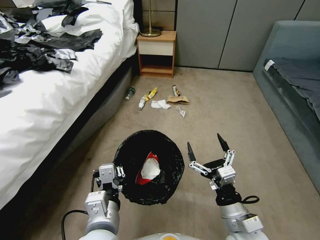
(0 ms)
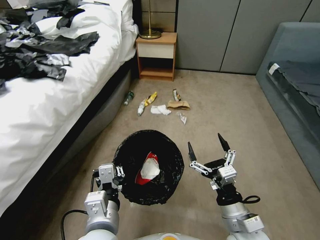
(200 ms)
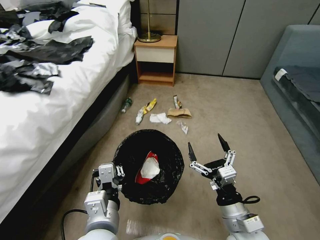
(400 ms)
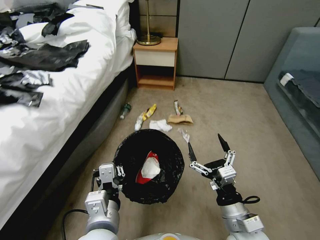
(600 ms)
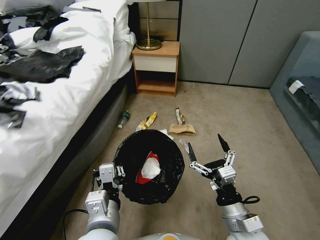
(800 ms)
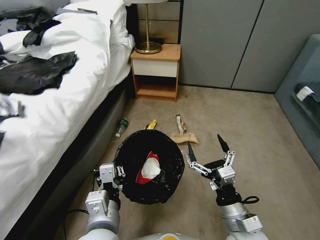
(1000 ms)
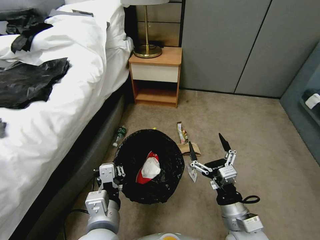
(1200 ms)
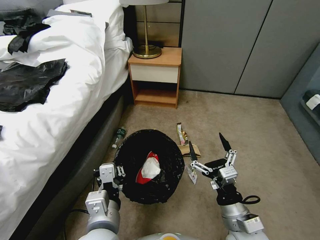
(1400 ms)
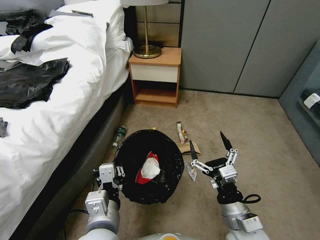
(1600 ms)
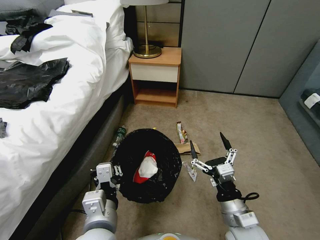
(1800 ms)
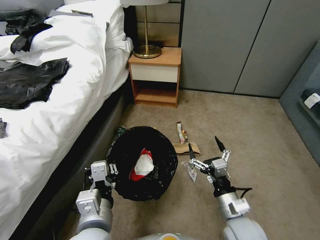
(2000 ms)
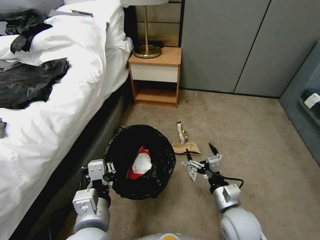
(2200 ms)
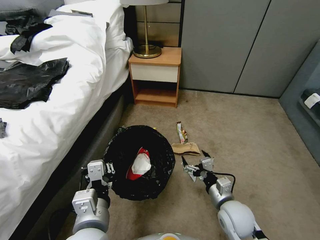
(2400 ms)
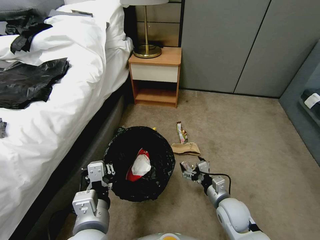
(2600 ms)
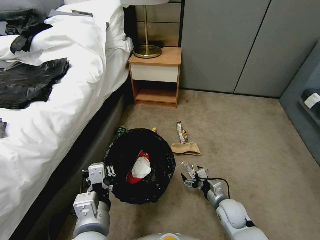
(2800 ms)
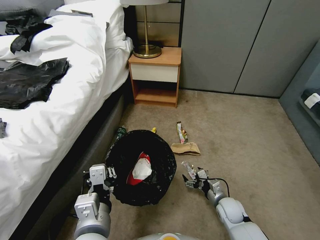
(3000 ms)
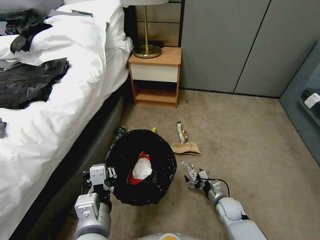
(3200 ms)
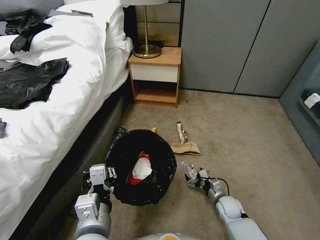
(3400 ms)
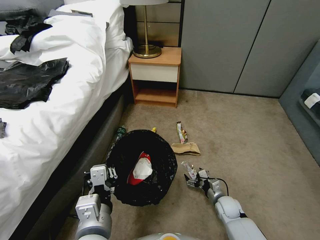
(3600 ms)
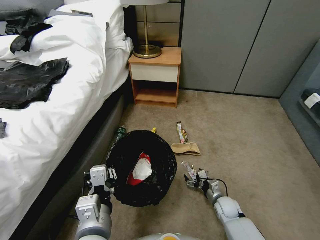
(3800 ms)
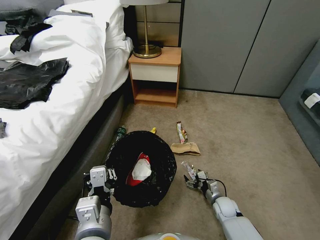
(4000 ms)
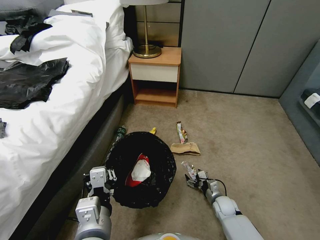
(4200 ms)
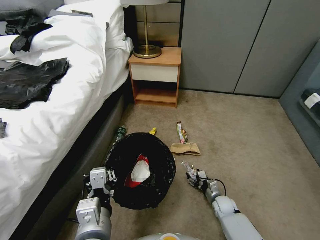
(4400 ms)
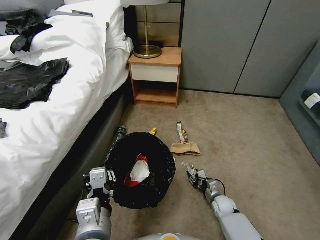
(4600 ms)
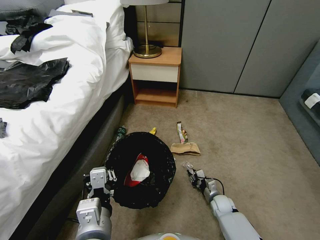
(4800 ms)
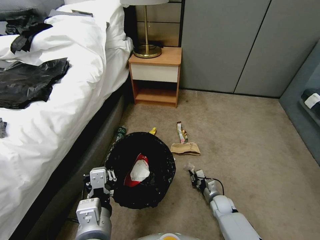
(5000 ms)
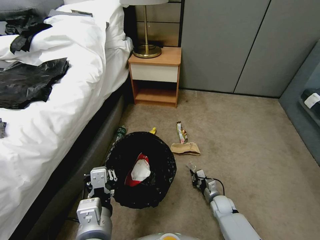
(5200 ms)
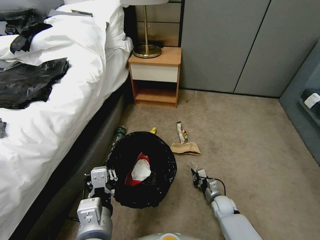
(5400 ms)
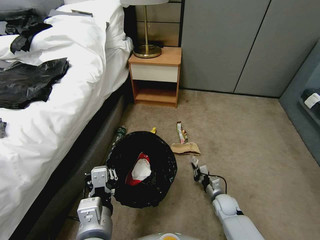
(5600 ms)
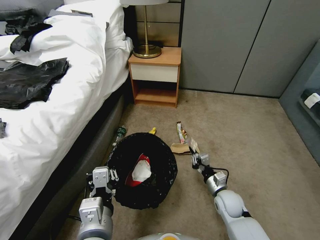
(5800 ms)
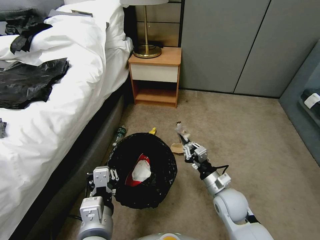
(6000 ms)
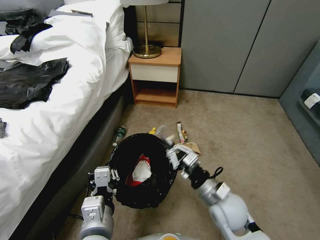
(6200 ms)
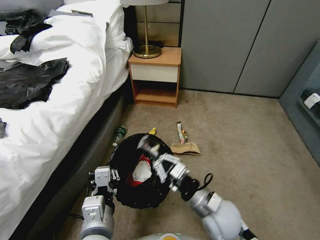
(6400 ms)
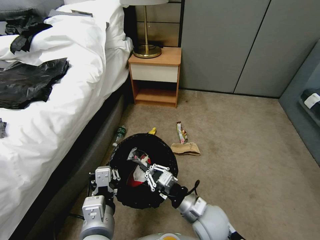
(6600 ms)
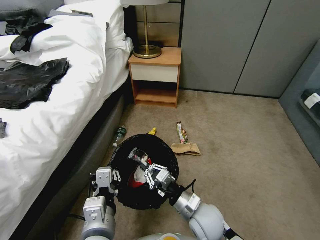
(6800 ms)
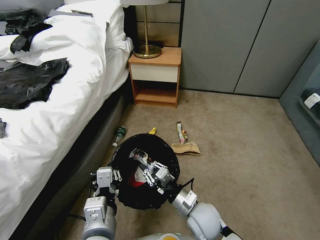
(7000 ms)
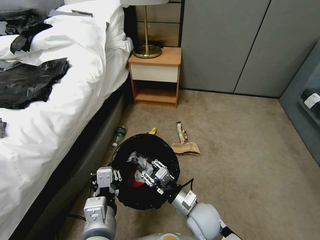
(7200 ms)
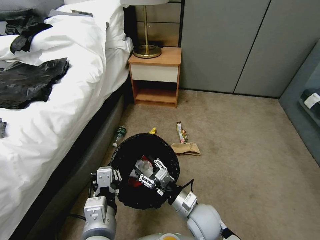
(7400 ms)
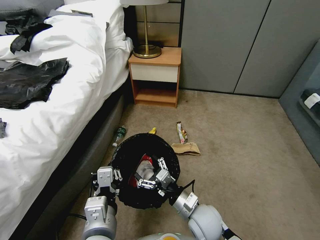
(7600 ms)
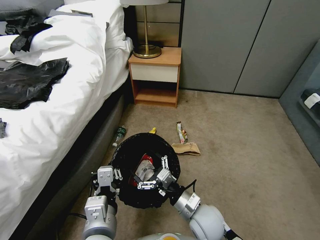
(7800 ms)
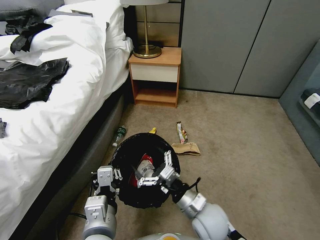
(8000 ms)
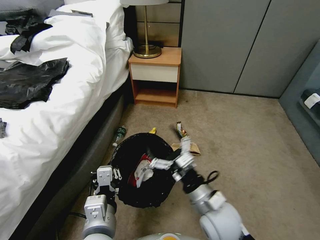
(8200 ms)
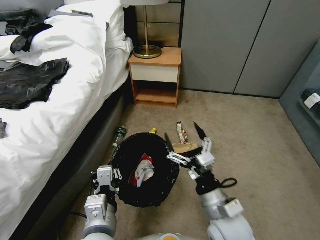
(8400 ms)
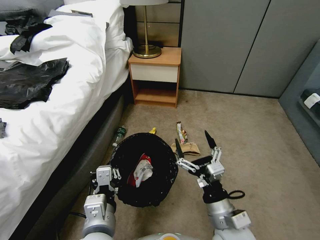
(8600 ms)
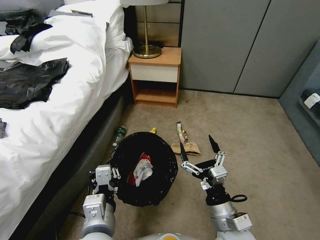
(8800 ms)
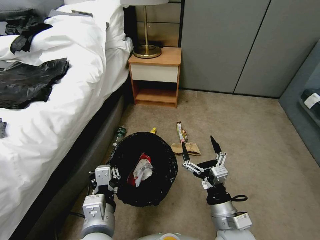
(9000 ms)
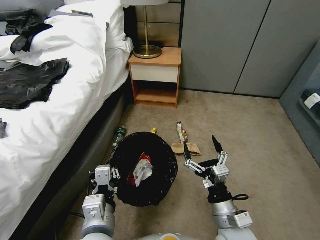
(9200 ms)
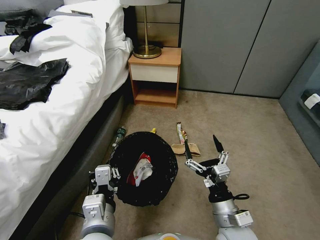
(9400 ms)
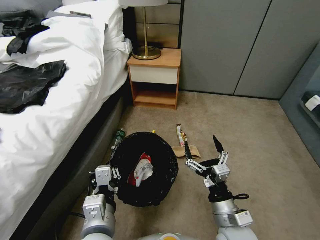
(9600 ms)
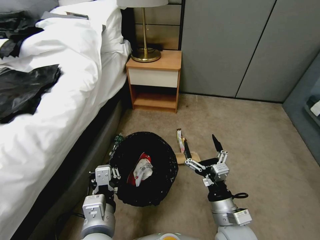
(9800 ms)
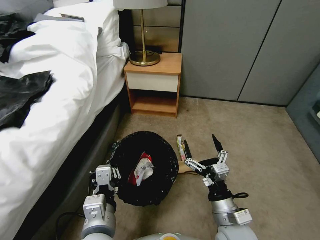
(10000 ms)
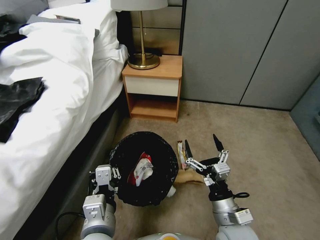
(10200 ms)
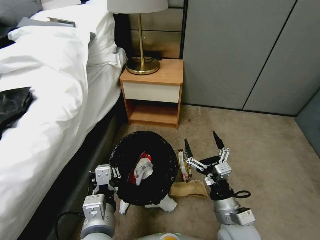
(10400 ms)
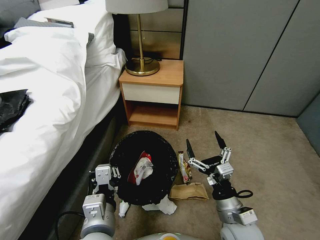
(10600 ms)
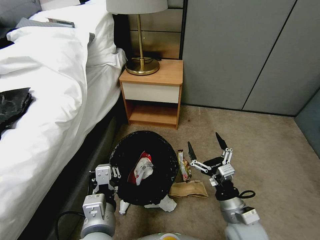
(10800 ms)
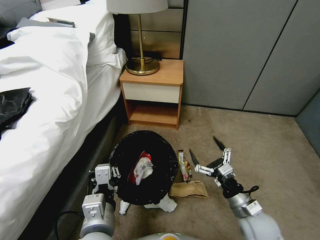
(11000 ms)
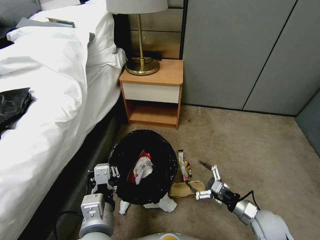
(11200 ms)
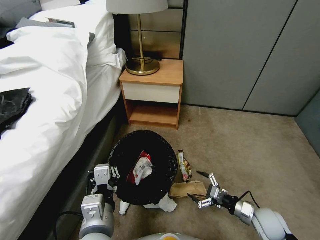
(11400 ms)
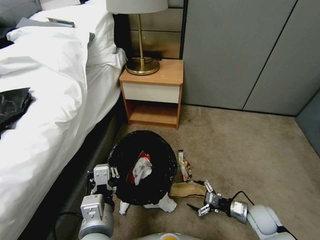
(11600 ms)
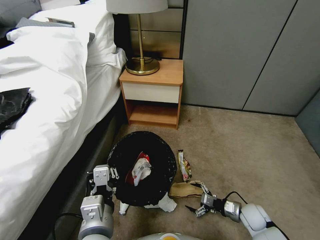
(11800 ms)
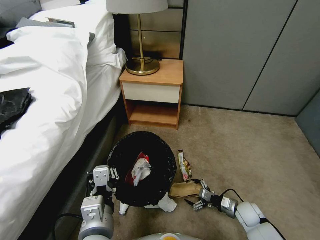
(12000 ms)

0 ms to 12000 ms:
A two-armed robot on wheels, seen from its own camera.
Task of the whole recording: Pick up the trash bin, then pick up the garbage from the floor and place it into the trash bin.
1600 ms to 3000 ms: The right gripper shifts roughly 20 cm downward and forward.
3000 ms to 4400 ms: The right gripper moves downward, roughly 10 cm.
4400 ms to 6000 ms: The right gripper goes some 20 cm upward, and closes up.
6000 ms to 7600 ms: The right gripper shifts roughly 10 cm to the left and backward, and opens.
7600 ms to 9000 ms: The right gripper shifts roughly 10 cm backward, to the right and upward.
10400 ms to 12000 ms: The right gripper travels downward, to the right and forward by approximately 30 cm.

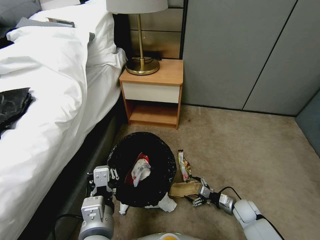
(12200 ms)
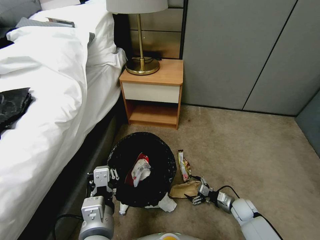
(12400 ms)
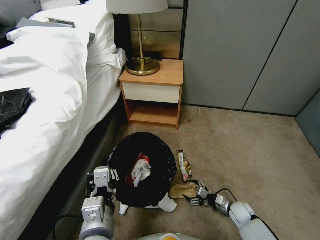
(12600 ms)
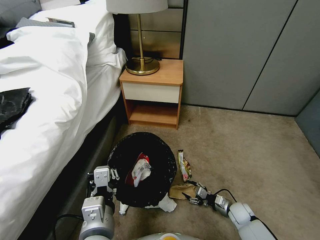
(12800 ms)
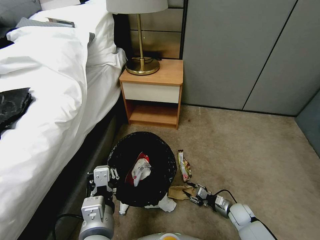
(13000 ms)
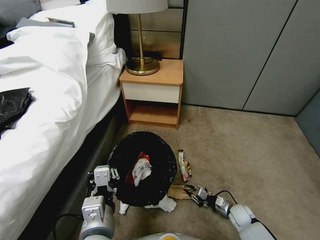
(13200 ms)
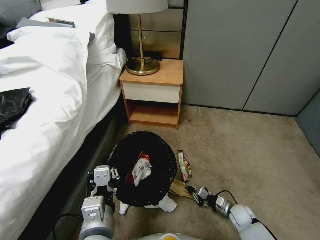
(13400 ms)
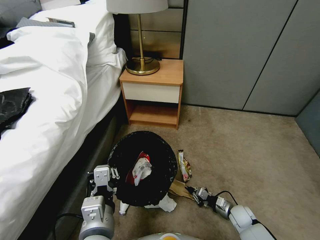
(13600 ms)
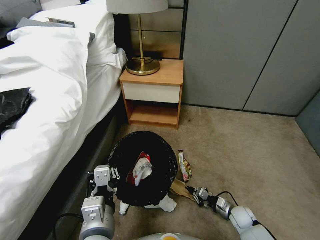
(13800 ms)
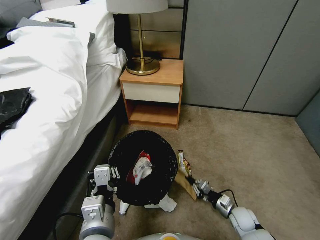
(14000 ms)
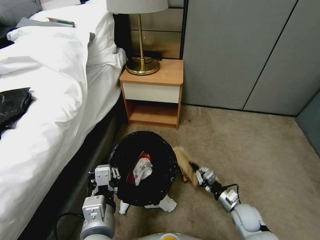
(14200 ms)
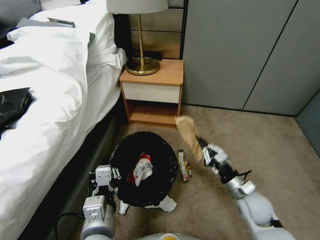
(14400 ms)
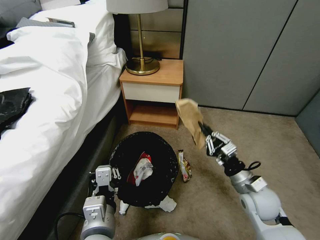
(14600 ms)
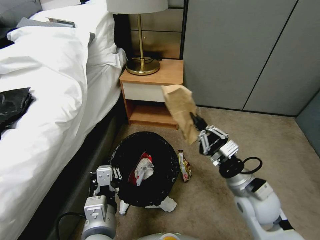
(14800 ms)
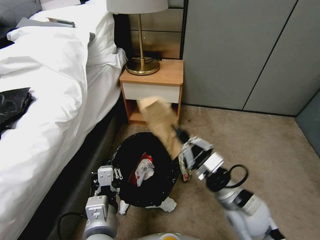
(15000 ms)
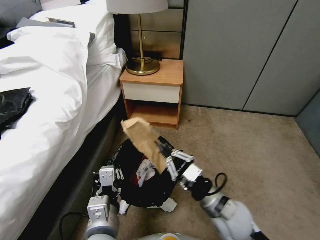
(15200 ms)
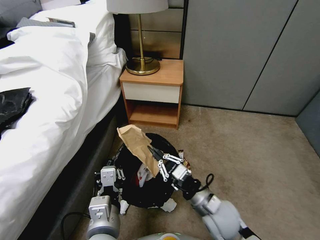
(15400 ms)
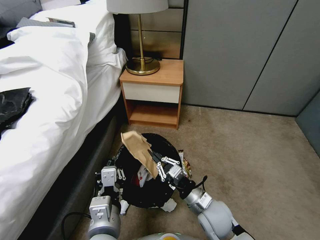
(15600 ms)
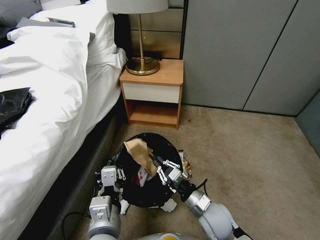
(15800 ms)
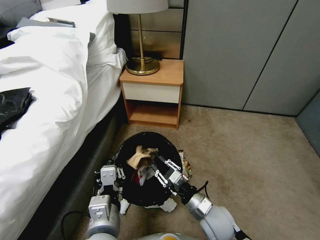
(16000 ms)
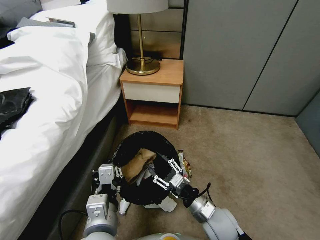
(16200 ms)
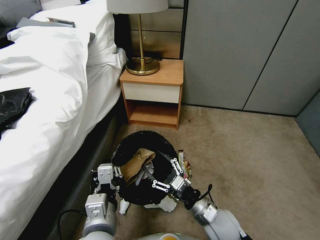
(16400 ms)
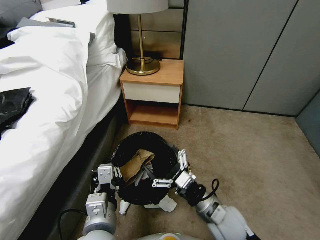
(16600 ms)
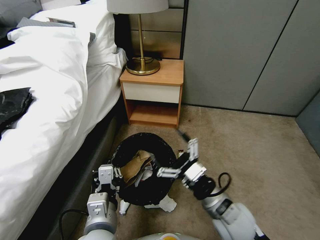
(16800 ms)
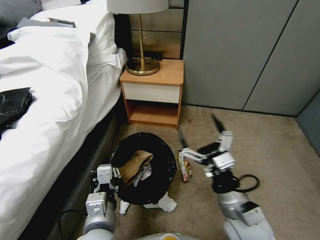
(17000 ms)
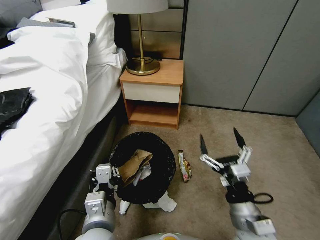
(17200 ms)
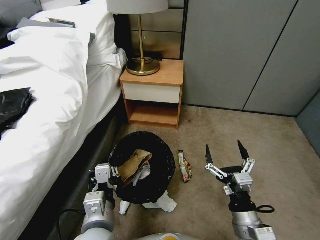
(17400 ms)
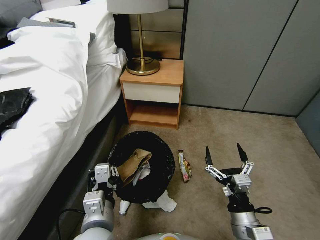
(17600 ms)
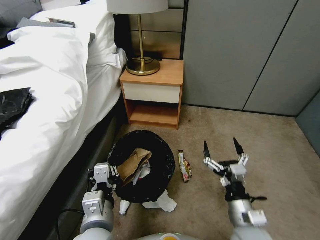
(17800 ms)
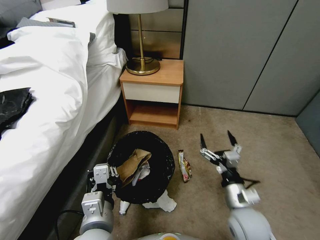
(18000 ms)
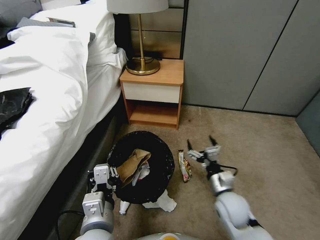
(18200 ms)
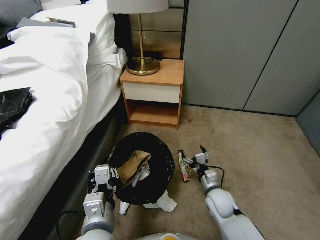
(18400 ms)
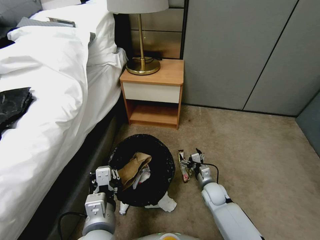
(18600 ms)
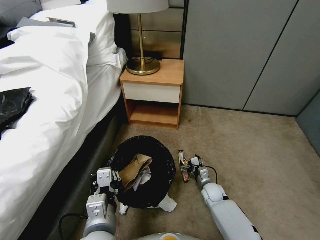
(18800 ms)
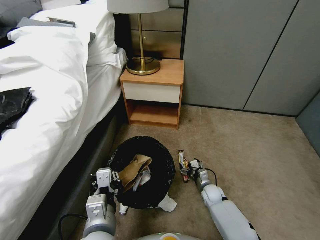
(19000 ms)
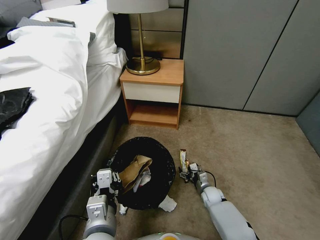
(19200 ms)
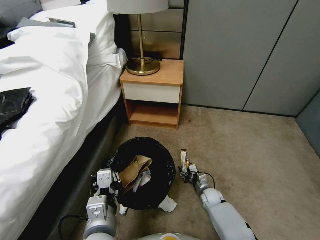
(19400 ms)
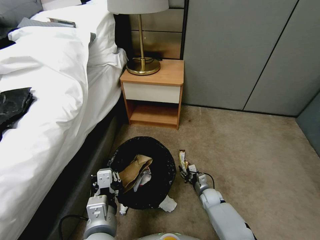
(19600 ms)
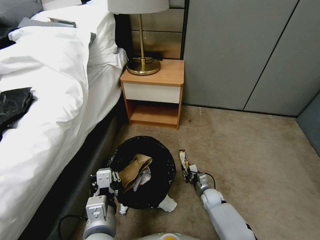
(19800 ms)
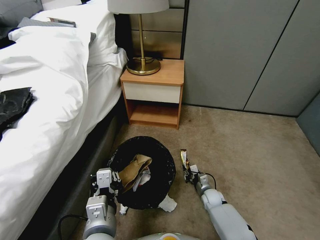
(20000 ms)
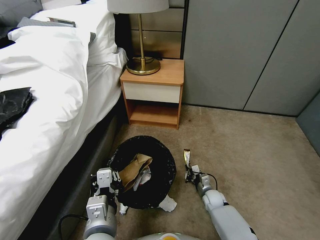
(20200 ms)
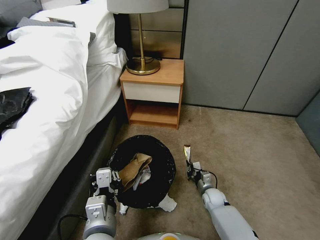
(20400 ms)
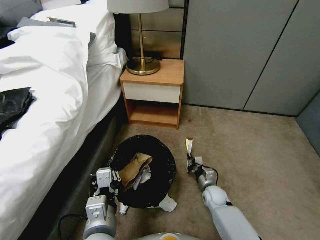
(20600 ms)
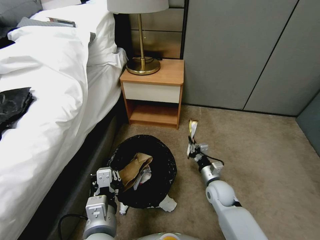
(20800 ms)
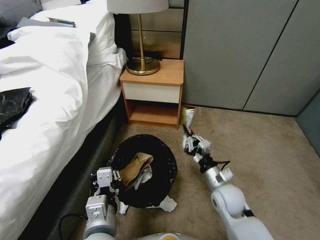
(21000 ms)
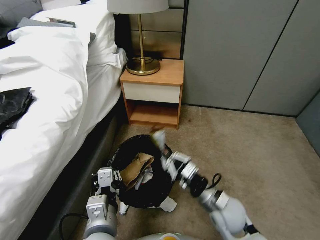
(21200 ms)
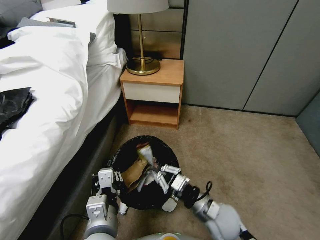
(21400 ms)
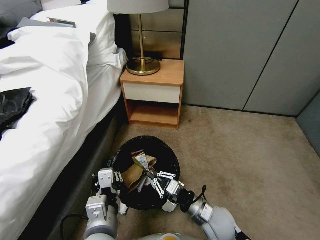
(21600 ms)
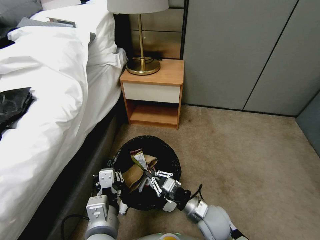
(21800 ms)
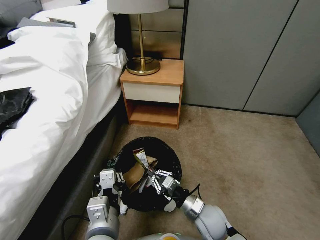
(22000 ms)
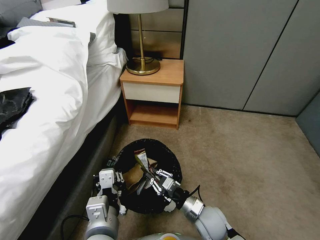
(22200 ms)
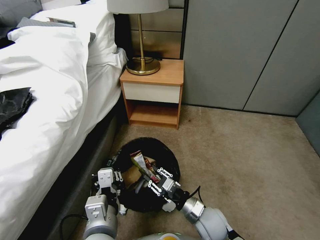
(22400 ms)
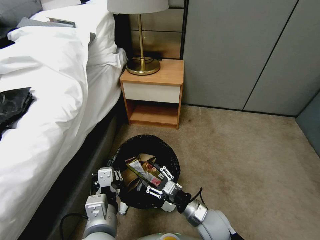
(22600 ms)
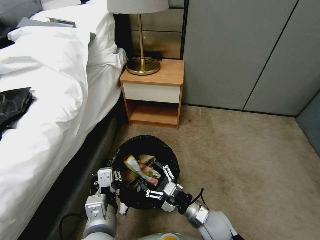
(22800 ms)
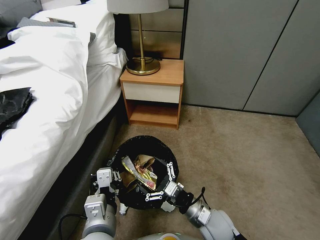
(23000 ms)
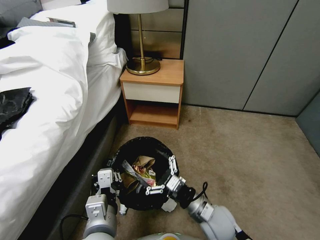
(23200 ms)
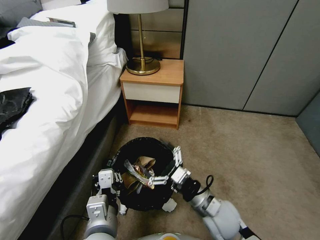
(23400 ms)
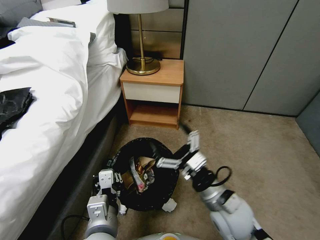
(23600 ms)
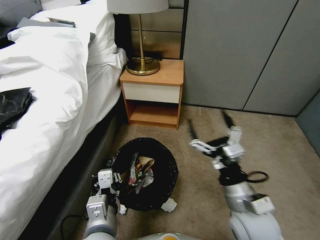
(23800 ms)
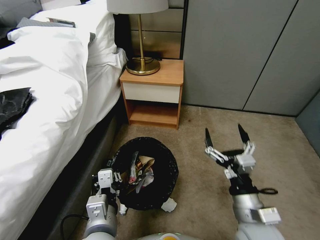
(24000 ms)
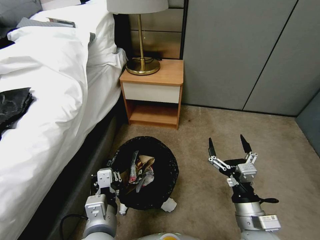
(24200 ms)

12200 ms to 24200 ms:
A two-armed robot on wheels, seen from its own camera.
Task of the whole recording: Pick up the trash bin, then pick up the garbage from the floor and place it into the trash bin.
12200 ms to 13800 ms: The right gripper closes its fingers.
13800 ms to 15200 ms: The right gripper shifts roughly 30 cm upward and to the left.
15200 ms to 16600 ms: The right gripper opens its fingers.
16600 ms to 18200 ms: The right gripper moves about 5 cm.
18200 ms to 19800 ms: The right gripper goes about 25 cm downward, and closes.
19800 ms to 21200 ms: The right gripper goes about 25 cm upward, and closes.
21200 ms to 22600 ms: The right gripper heads downward, covering some 5 cm, and opens.
22600 ms to 24200 ms: The right gripper shifts approximately 15 cm upward, to the right and backward, and opens its fingers.
